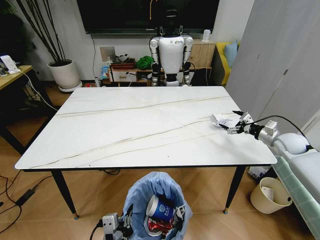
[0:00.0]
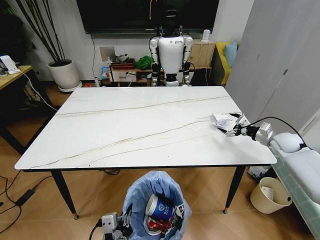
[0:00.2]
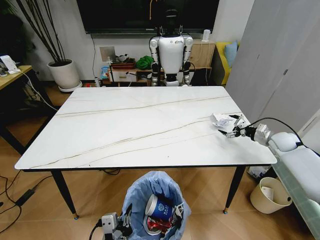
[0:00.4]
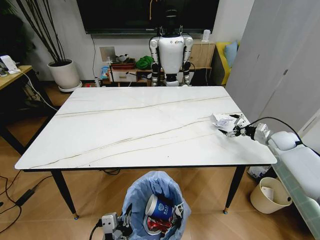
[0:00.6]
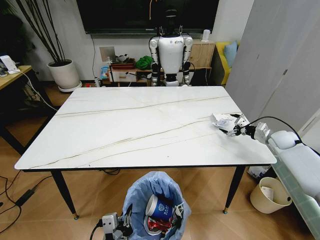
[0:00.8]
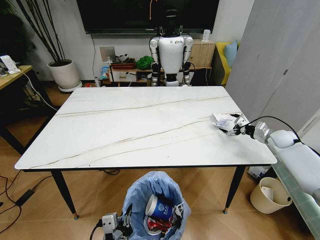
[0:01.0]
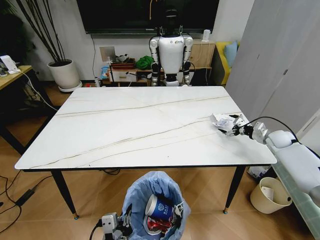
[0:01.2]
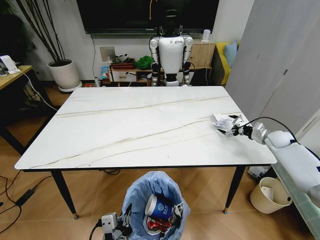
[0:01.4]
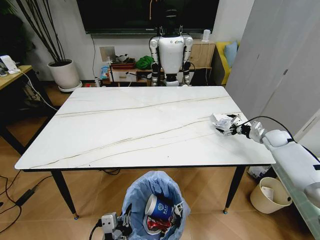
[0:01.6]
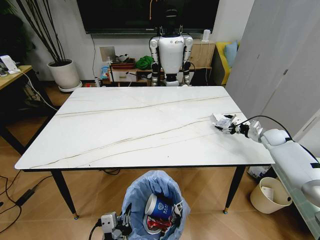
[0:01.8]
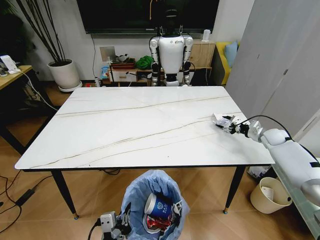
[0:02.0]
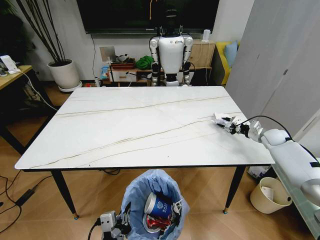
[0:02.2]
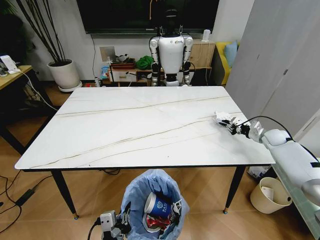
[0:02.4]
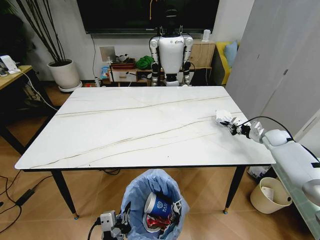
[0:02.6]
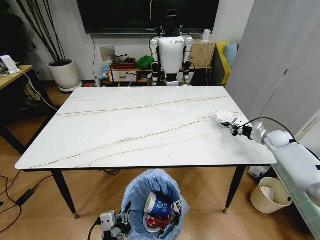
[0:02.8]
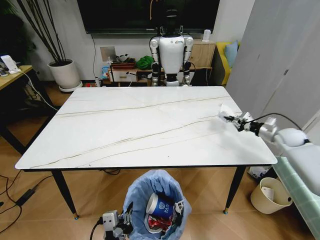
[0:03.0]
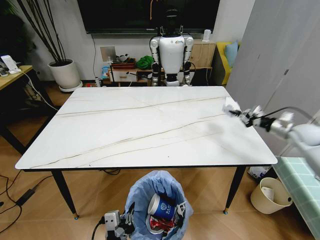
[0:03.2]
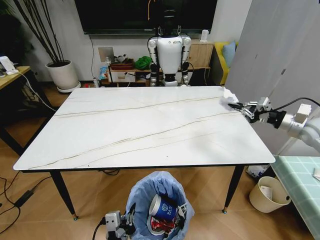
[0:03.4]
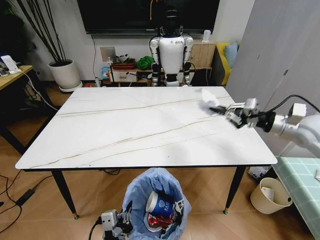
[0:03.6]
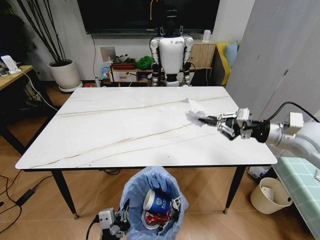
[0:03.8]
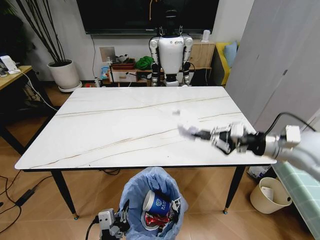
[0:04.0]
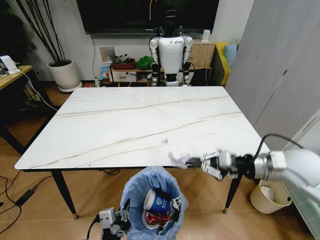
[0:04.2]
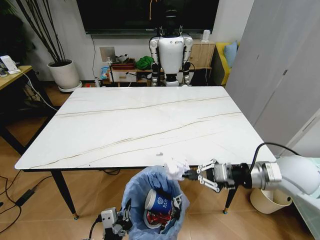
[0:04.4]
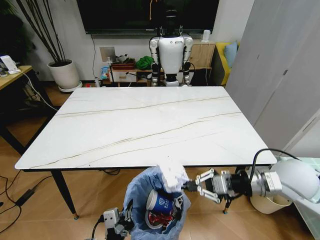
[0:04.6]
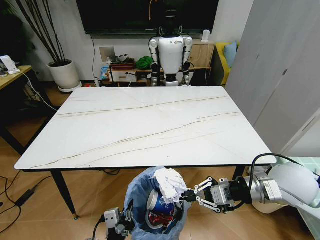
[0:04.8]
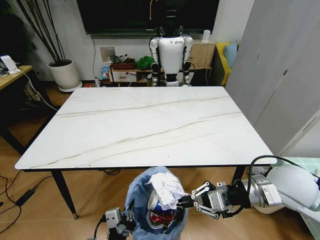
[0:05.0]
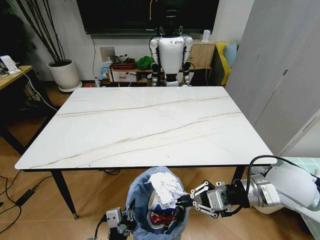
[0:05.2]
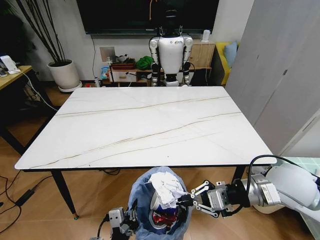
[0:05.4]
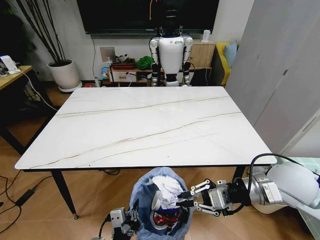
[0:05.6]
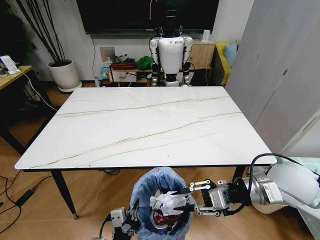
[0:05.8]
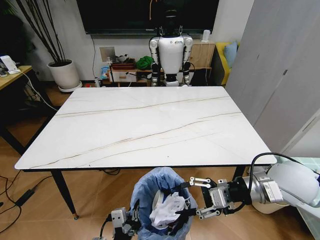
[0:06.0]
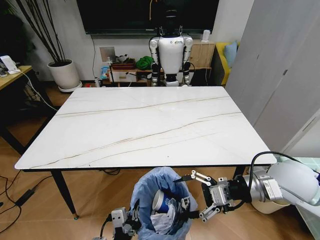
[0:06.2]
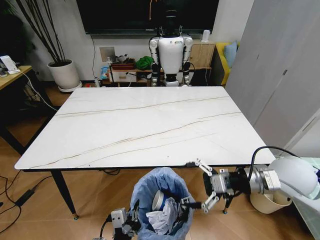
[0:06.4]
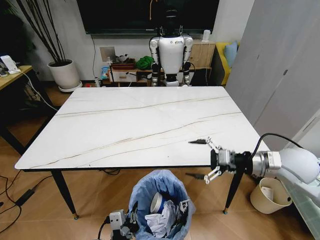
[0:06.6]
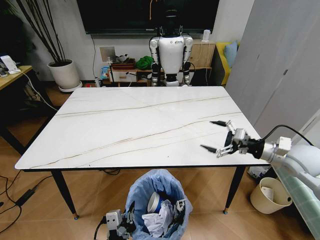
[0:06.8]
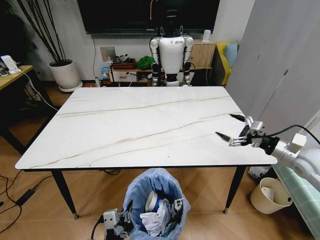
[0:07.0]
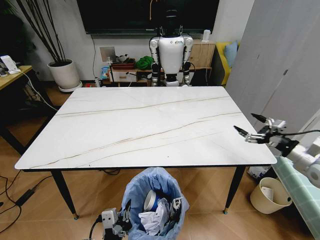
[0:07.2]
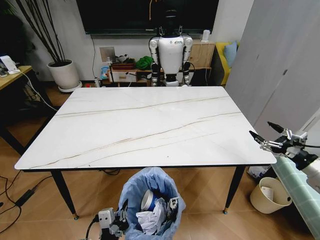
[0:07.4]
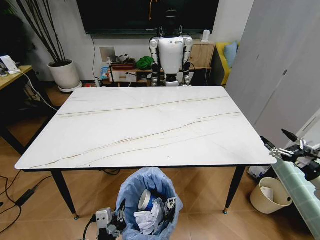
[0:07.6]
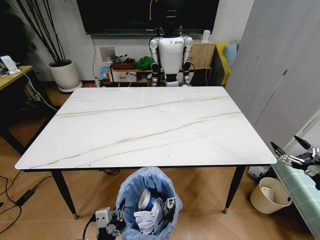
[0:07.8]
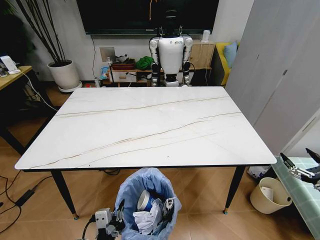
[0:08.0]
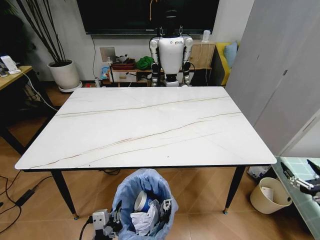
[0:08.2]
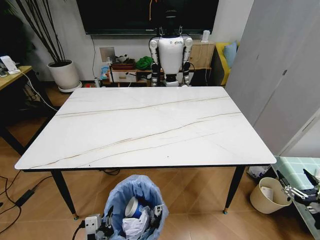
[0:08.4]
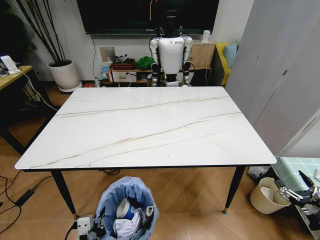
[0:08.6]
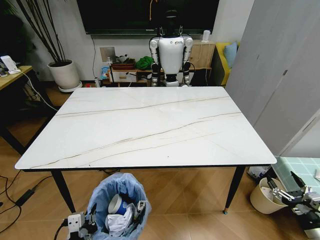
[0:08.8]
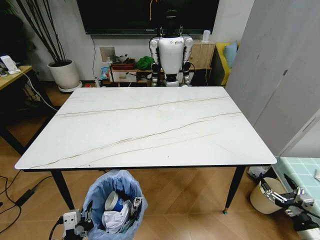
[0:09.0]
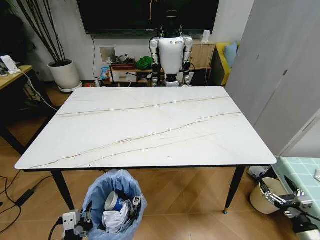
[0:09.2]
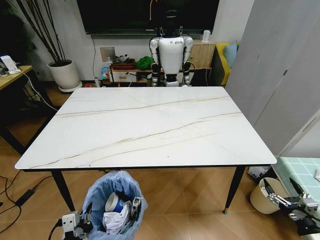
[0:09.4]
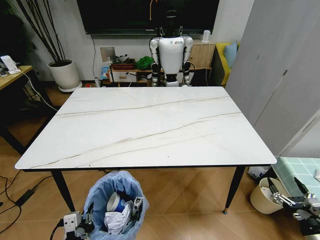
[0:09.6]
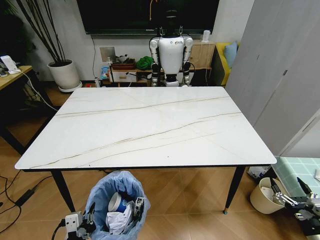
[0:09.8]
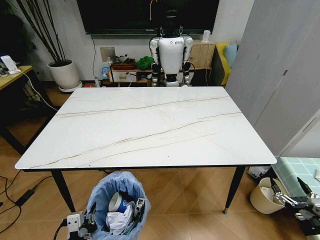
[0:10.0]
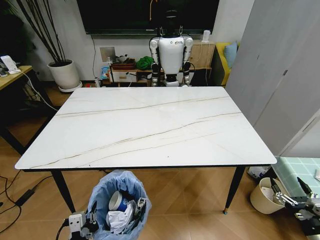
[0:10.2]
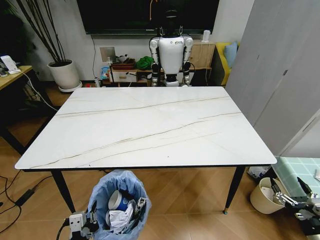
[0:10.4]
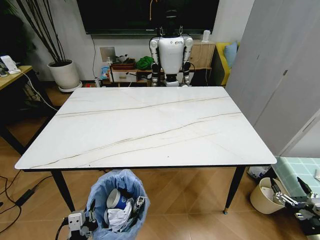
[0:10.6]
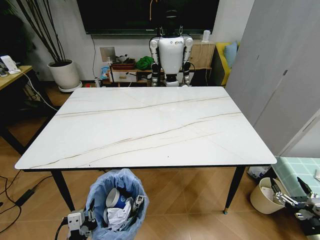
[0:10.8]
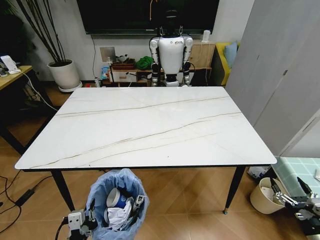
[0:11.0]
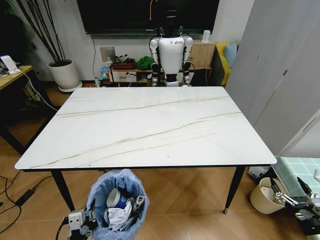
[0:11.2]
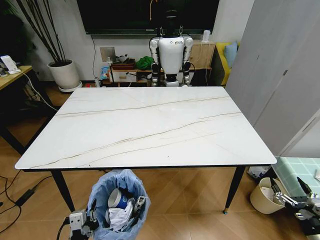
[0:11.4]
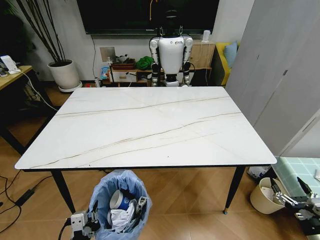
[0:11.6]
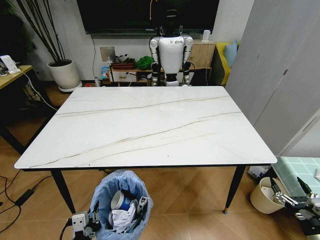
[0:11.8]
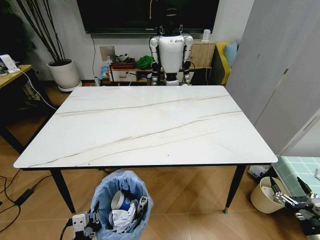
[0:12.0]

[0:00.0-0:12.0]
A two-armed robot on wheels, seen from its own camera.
Task of the whole recording: Pick up the trash bin and place the trash from the table into it.
0:00.0 to 0:01.6: The right gripper goes some 5 cm forward.
0:01.6 to 0:03.0: The right gripper closes.
0:03.0 to 0:04.4: The right gripper travels backward, to the left and upward by about 35 cm.
0:04.4 to 0:06.0: The right gripper opens up.
0:06.0 to 0:07.6: The right gripper is displaced to the right and downward by about 25 cm, and opens.
0:07.6 to 0:09.0: The right gripper shifts about 20 cm downward, backward and to the left. The left gripper goes about 10 cm to the left.
0:09.0 to 0:10.4: There are only small adjustments of the grippers.
0:10.4 to 0:12.0: Both grippers stay about where they are.

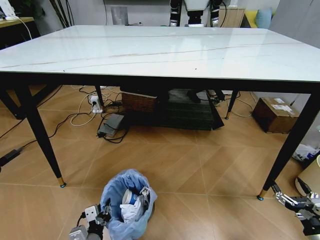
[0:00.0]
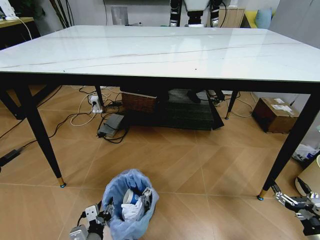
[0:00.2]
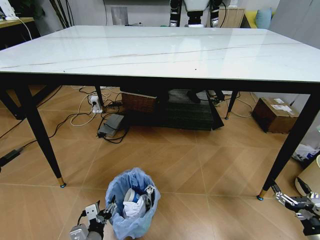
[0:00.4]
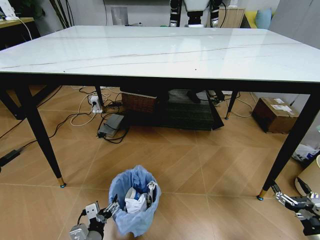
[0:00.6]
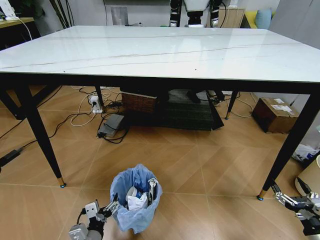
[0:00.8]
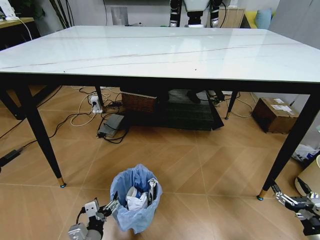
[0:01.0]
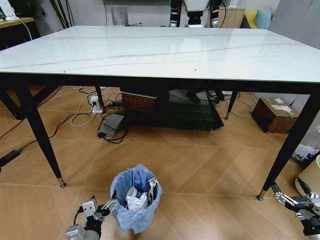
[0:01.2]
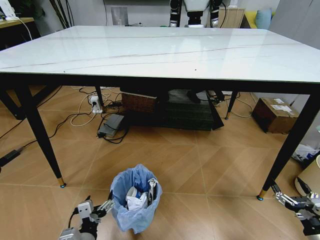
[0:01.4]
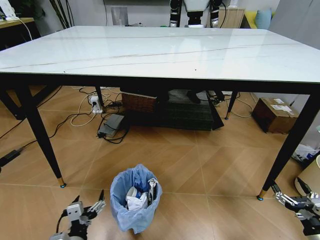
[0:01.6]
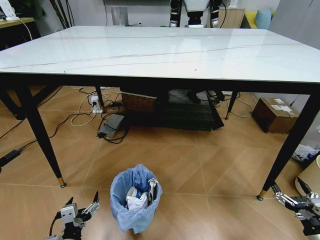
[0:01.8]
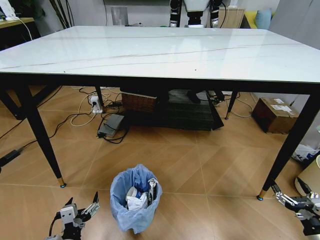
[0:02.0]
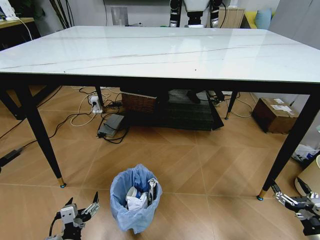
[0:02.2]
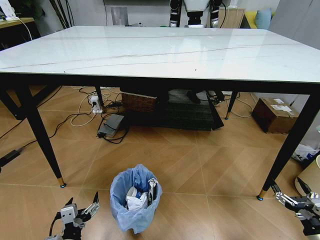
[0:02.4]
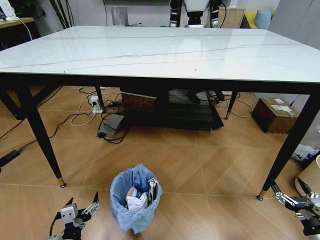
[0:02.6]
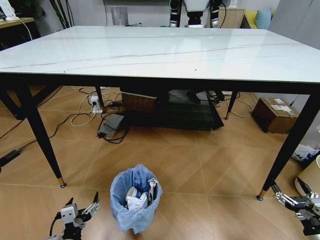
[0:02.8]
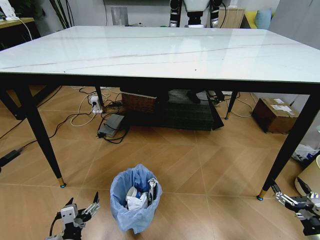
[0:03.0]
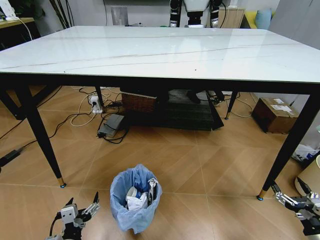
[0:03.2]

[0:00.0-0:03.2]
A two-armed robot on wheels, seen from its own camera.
Task of the whole recording: Pick up the trash bin and place the trash from the table into it.
0:00.0 to 0:01.6: The left gripper is displaced upward by approximately 5 cm, and opens up.
0:01.6 to 0:03.2: The grippers stay close to where they were, moving slightly.
